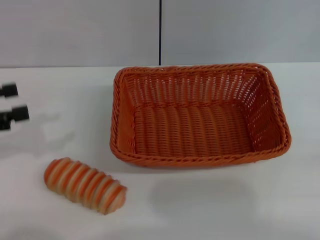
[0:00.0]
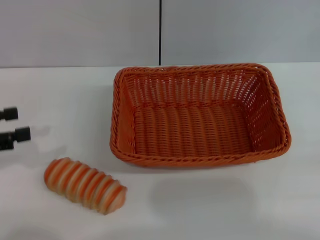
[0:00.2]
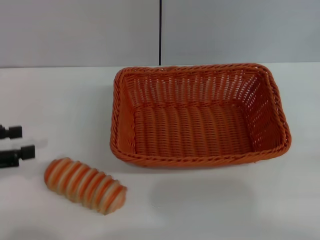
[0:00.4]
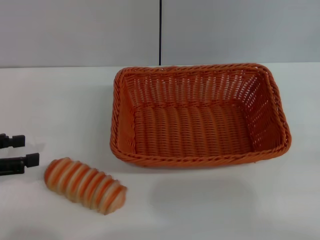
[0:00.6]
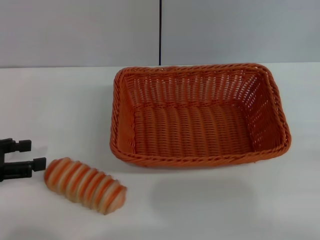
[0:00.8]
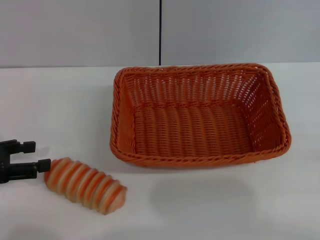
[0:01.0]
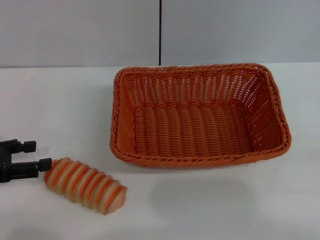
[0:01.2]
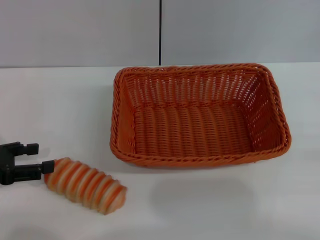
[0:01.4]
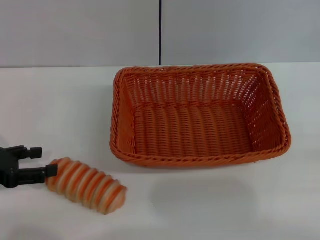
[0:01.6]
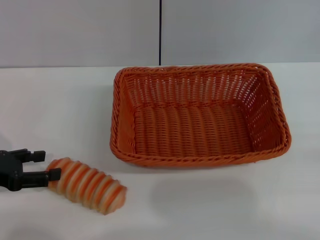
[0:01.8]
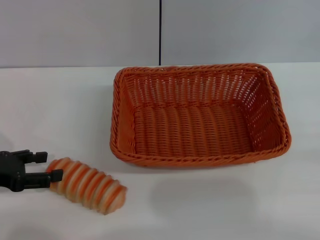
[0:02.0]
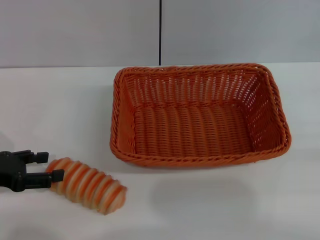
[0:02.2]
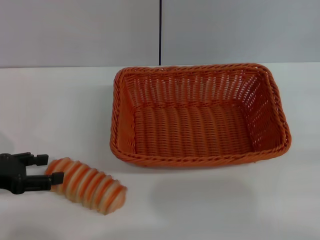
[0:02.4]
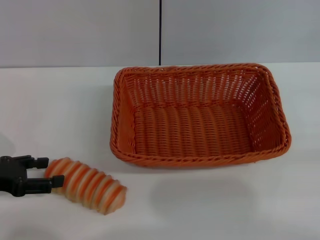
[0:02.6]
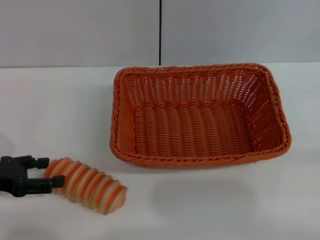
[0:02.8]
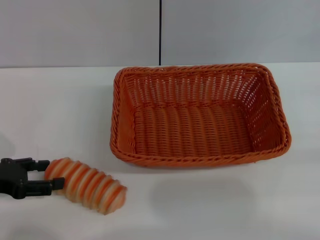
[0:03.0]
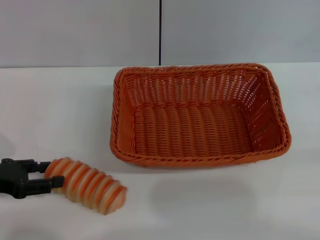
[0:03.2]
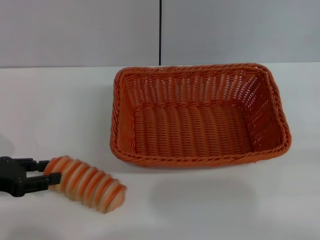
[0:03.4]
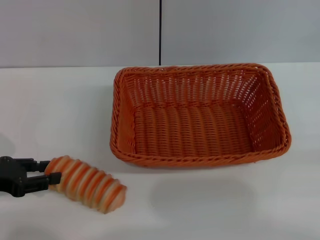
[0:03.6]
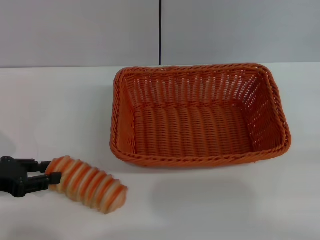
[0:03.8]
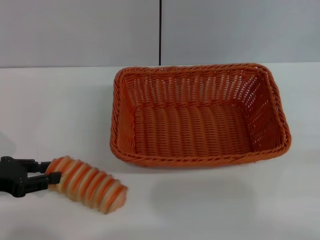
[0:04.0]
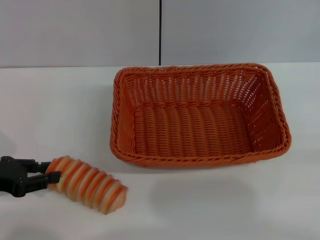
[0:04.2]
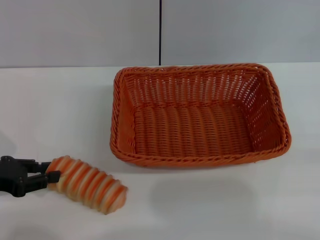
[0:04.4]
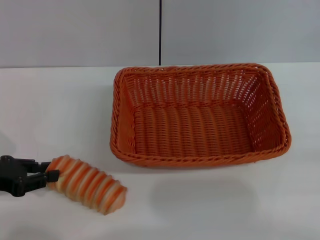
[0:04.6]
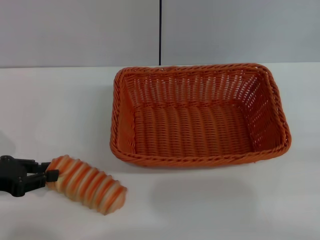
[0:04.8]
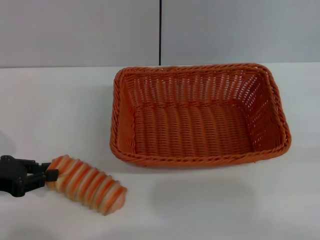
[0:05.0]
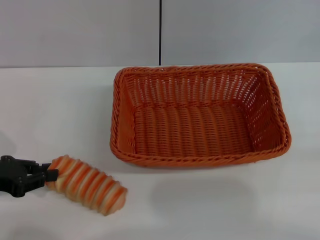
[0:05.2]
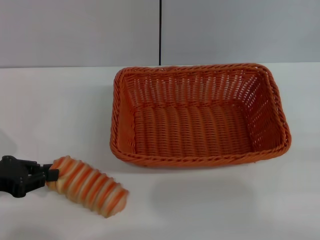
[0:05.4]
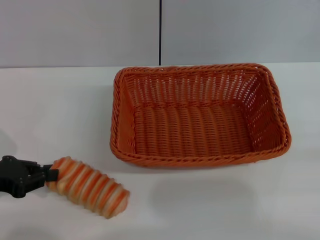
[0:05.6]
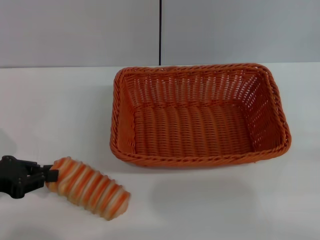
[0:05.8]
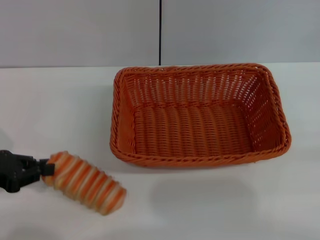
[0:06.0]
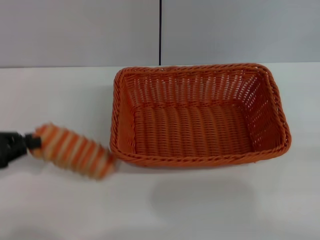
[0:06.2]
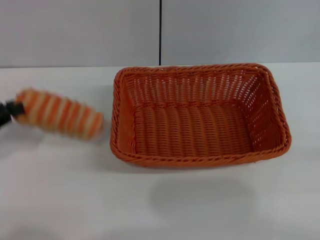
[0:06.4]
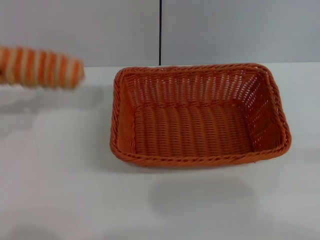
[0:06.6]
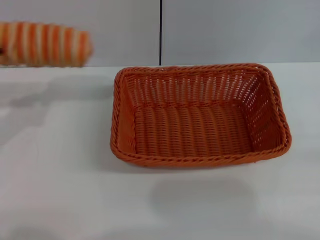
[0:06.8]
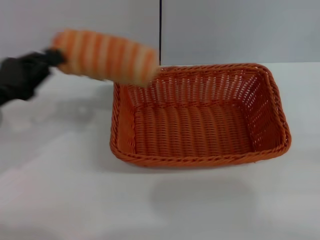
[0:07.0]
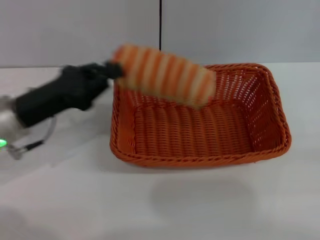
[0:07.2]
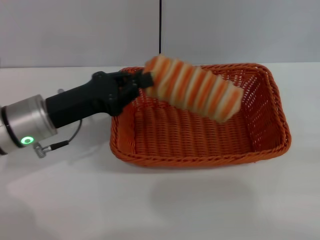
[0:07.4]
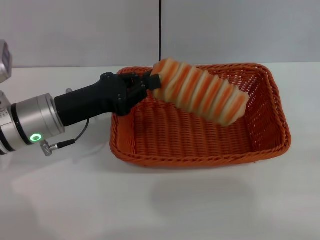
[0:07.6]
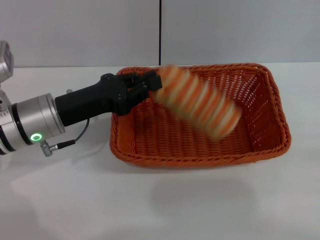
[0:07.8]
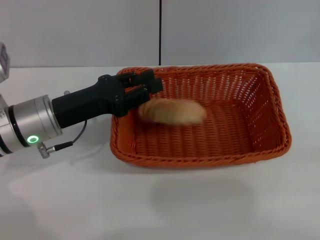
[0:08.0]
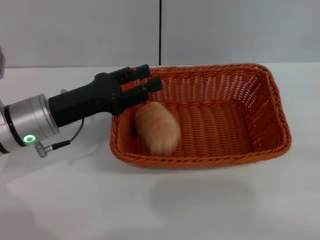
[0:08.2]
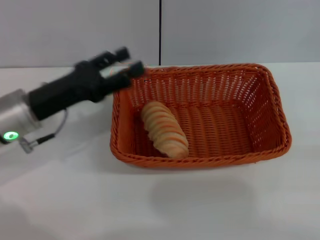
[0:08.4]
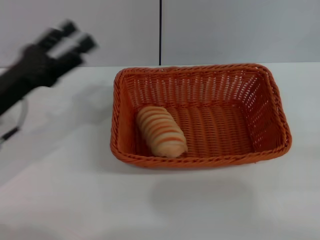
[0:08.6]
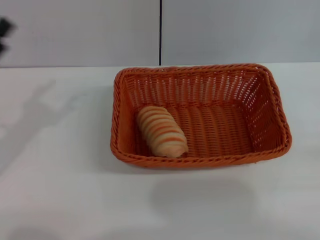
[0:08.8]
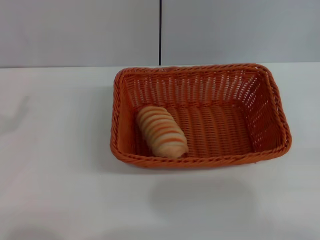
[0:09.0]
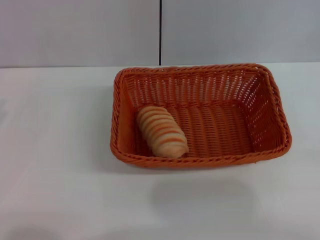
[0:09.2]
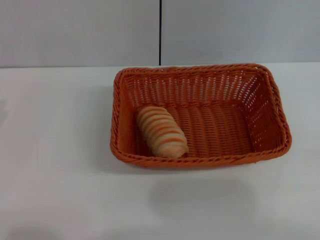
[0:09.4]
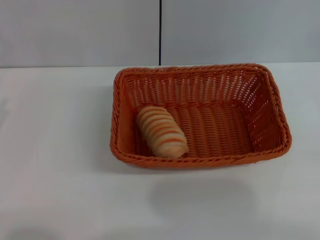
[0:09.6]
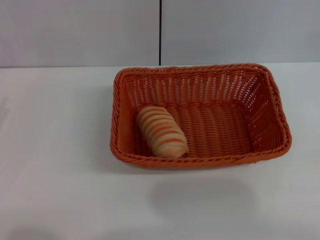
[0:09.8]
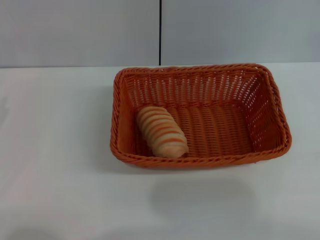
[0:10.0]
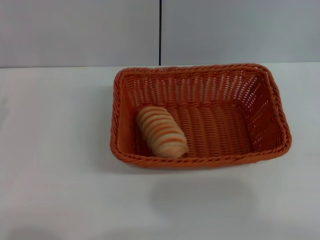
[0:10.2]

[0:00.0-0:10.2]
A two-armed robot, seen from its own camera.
Step, 0:00.0 to 0:06.2: Pick up the long bread with the left gripper.
Step, 0:06.6 to 0:08.4: Place the long bread into the light basket with the left gripper.
0:00.0 to 0:01.4: The left gripper is displaced downward by about 5 cm.
0:01.4 to 0:03.0: The grippers make only small movements.
0:03.0 to 0:04.4: The left gripper closes its fingers.
0:04.4 to 0:05.8: Neither gripper changes place.
0:05.8 to 0:07.2: The left gripper moves to the right and forward, about 10 cm.
0:07.2 to 0:08.8: The left gripper travels to the left by about 5 cm, and opens up.
